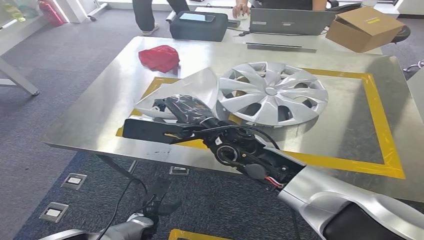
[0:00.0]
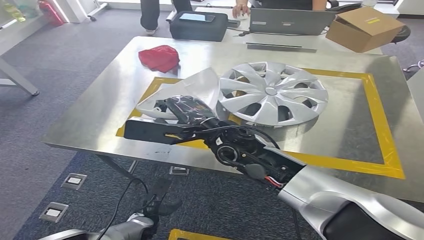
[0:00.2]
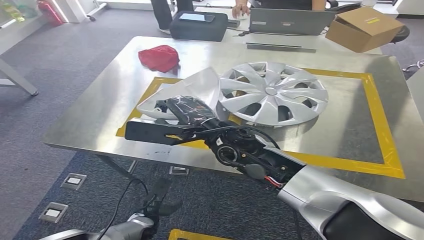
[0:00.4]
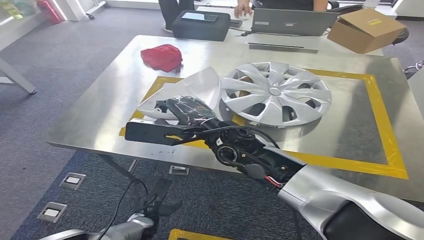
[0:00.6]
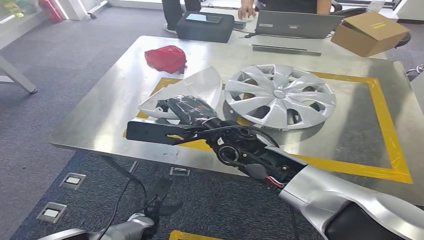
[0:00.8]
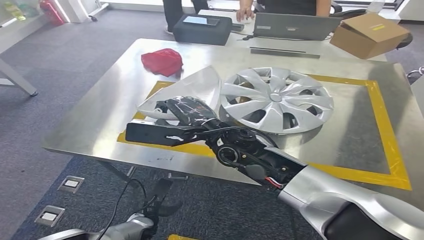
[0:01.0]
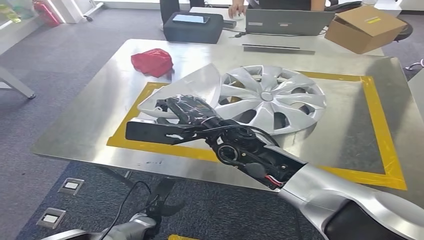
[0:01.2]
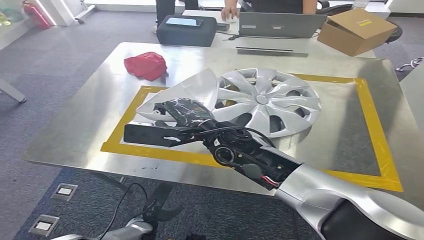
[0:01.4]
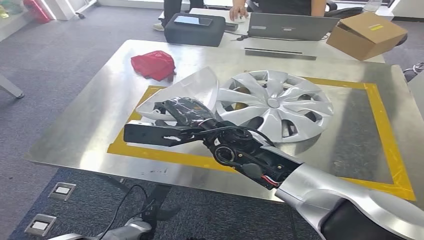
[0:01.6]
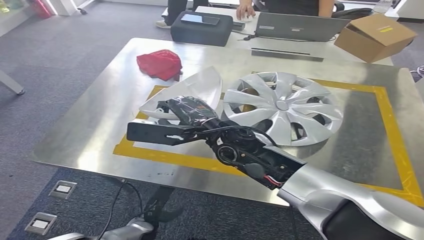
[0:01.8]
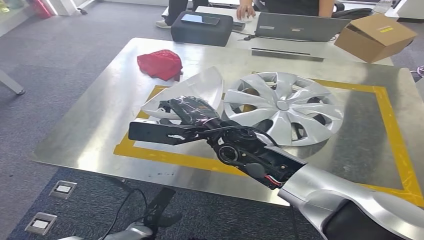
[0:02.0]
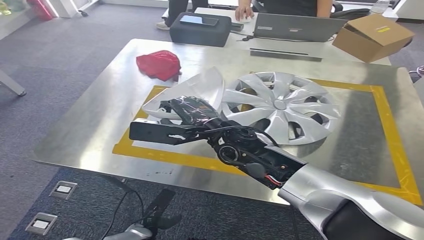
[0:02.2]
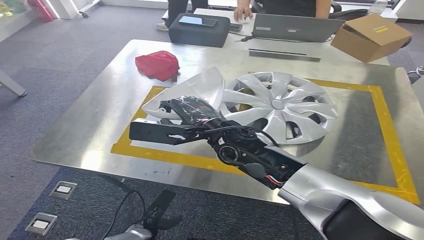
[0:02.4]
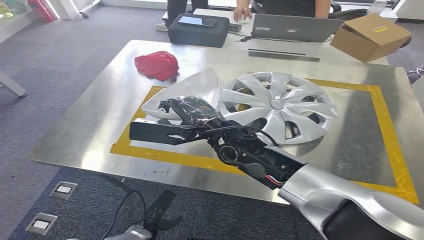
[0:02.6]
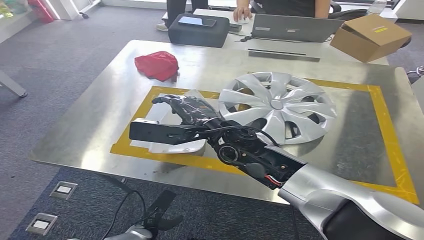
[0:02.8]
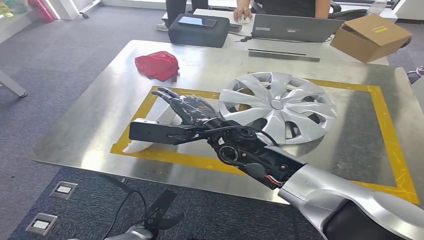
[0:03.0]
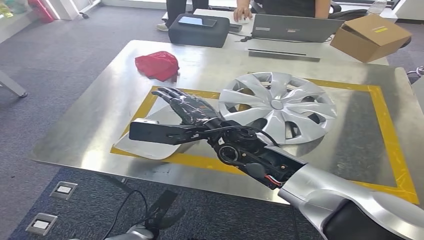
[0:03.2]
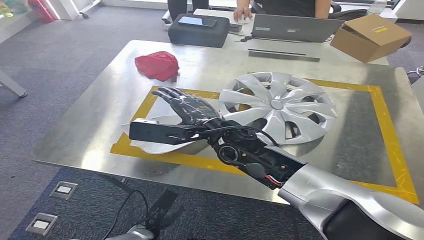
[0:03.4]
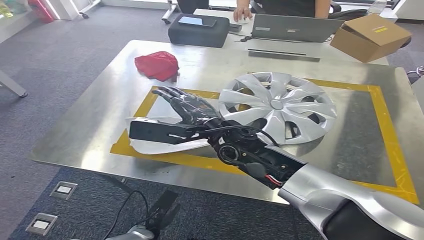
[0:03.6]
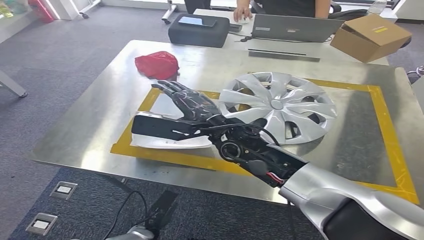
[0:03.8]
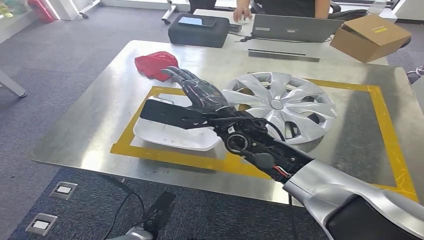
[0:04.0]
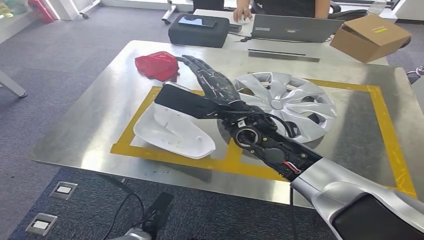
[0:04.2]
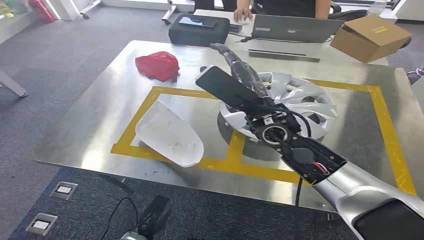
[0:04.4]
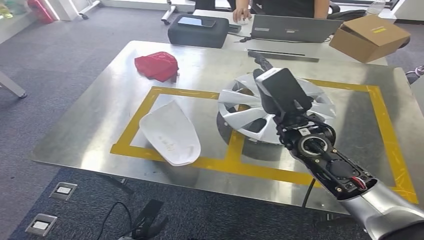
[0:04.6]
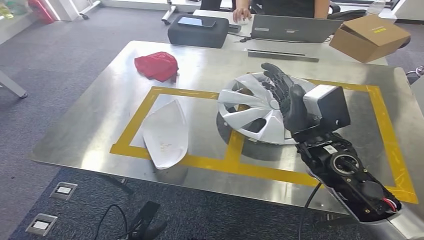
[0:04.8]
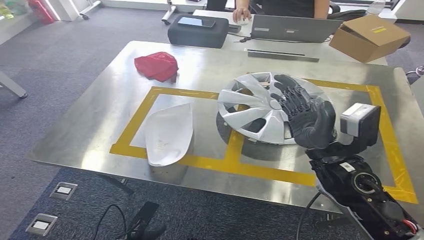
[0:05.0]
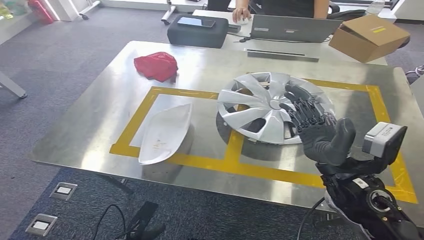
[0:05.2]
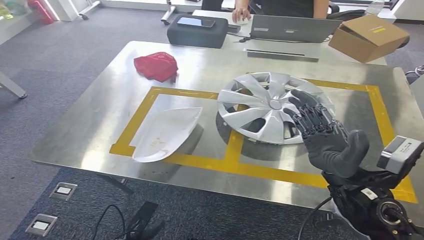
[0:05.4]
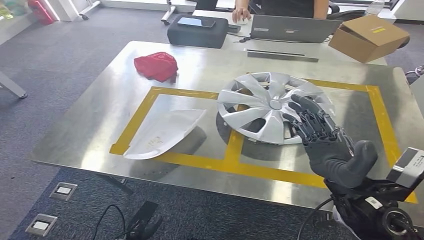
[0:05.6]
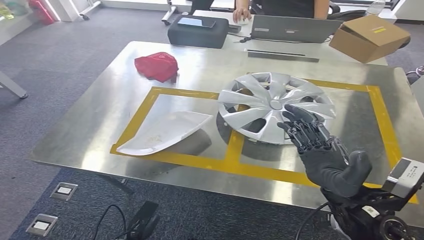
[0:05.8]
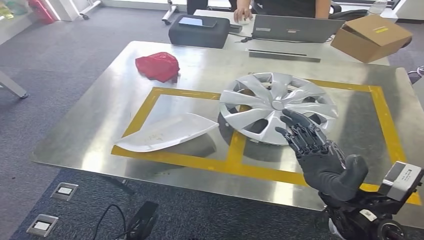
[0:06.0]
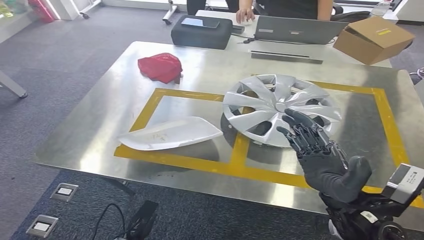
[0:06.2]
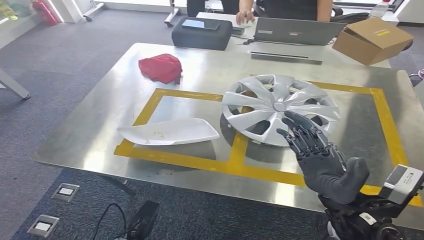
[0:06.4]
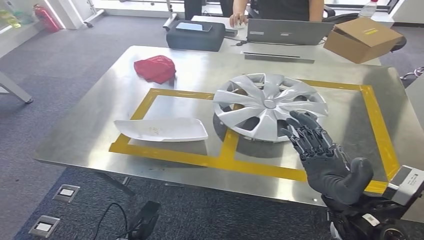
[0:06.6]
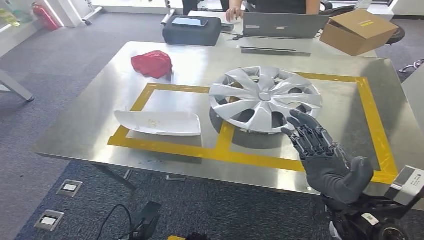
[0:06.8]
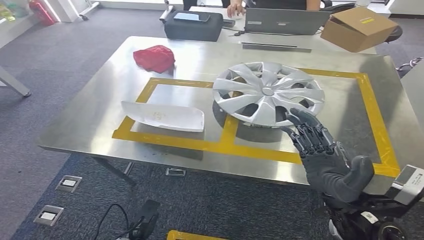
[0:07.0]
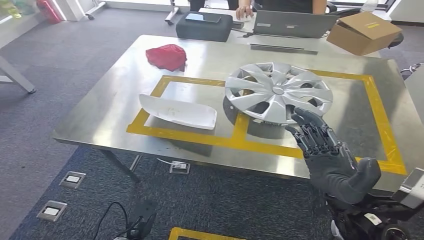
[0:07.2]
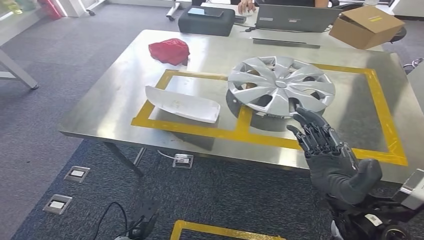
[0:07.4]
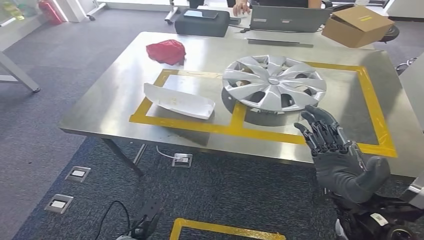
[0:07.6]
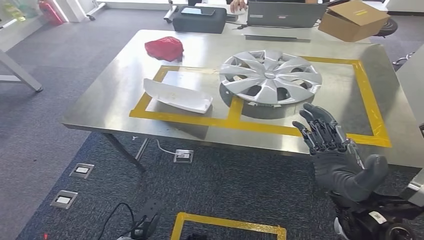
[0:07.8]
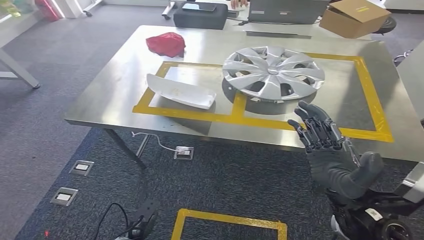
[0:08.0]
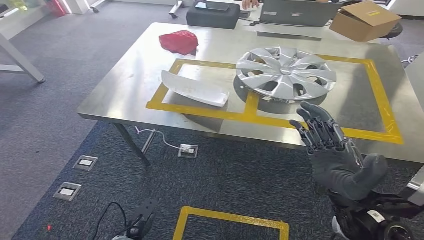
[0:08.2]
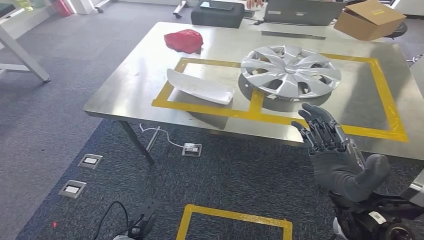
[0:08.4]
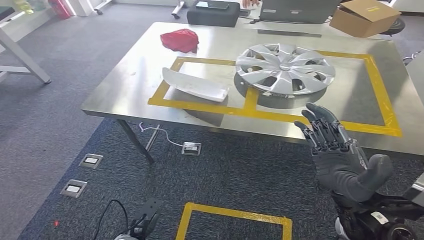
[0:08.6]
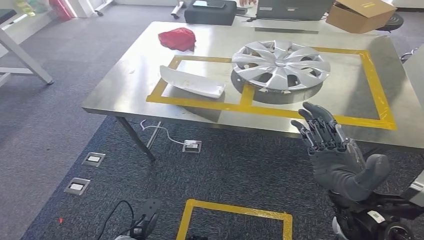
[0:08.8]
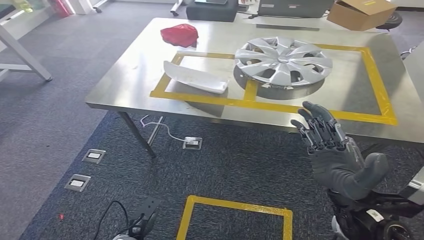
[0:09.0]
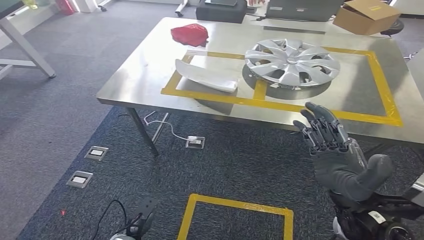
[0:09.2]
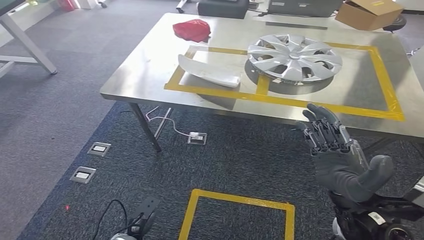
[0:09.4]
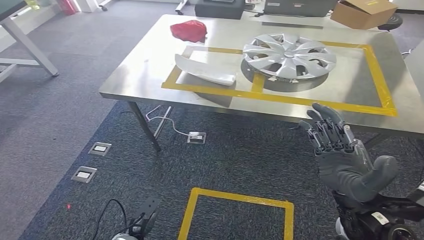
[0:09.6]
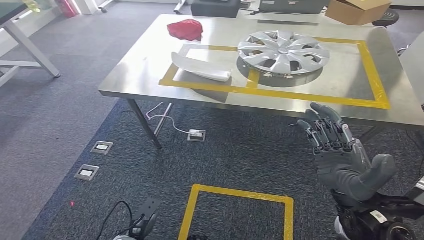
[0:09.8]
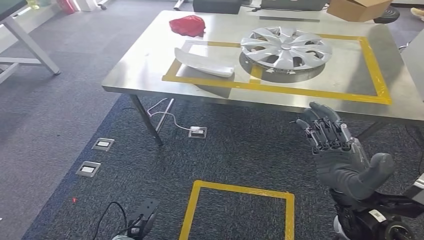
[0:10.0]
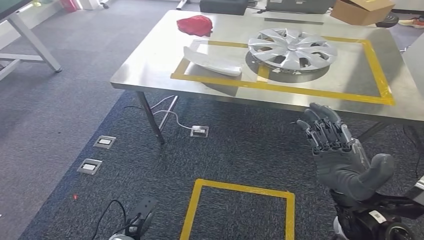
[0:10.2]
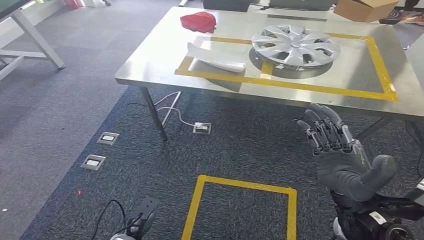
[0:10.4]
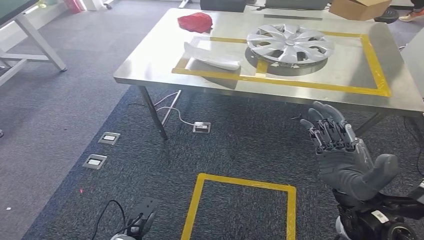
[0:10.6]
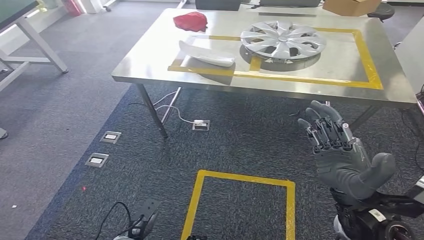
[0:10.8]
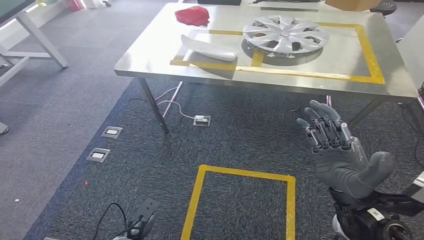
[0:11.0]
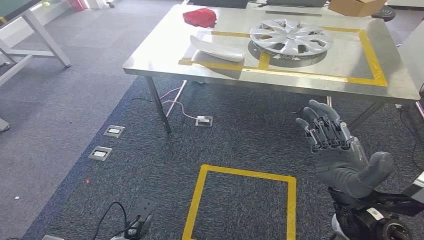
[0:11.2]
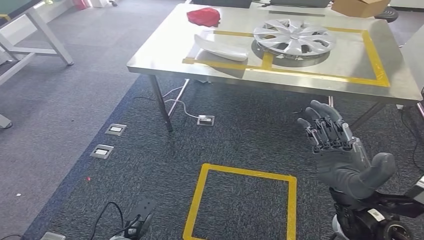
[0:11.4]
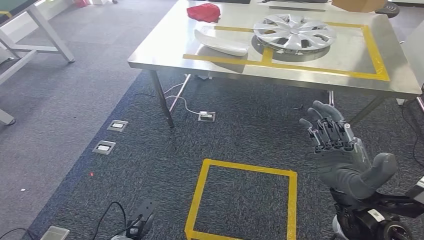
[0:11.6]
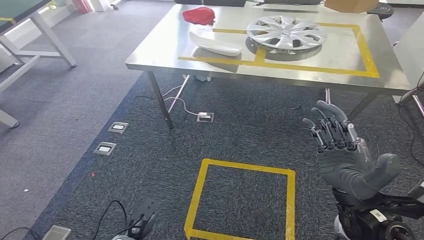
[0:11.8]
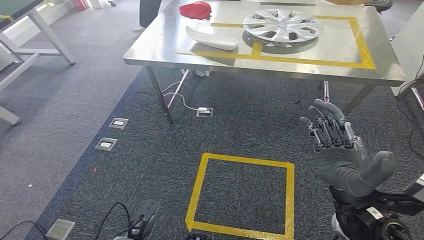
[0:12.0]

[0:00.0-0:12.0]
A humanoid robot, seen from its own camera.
Step, 0:00.0 to 0:06.4: Insert the small component into the corresponding slot on the workbench.
0:01.6 to 0:03.0: There are only small adjustments of the hands.
0:04.4 to 0:06.0: The right hand heads backward, to the right and downward, covering some 20 cm.

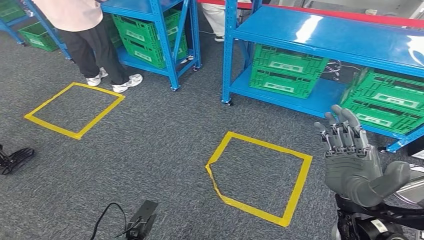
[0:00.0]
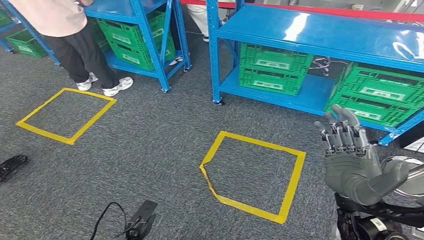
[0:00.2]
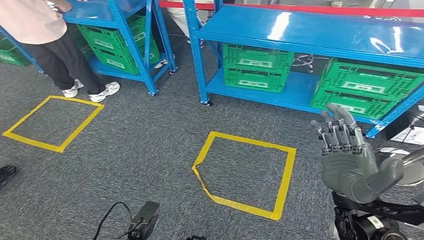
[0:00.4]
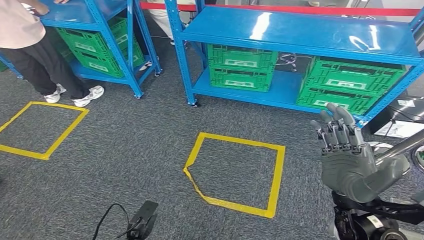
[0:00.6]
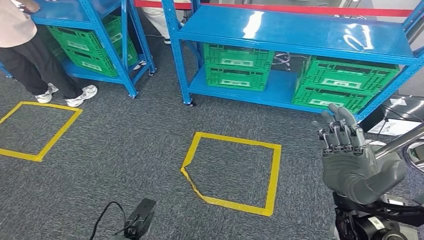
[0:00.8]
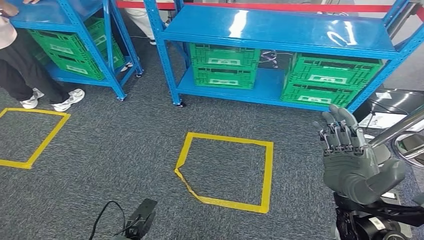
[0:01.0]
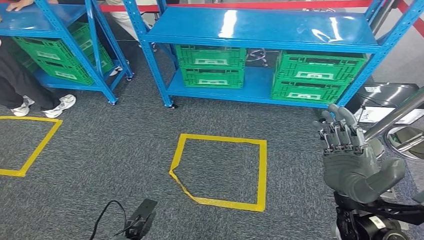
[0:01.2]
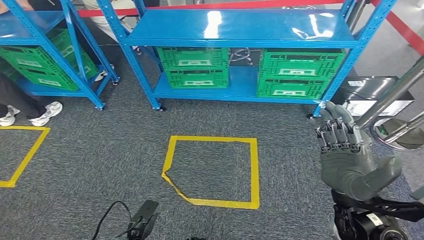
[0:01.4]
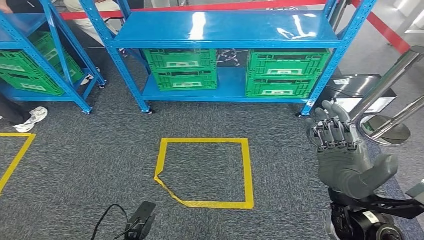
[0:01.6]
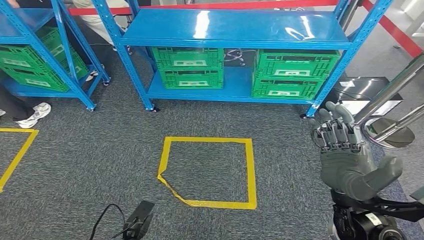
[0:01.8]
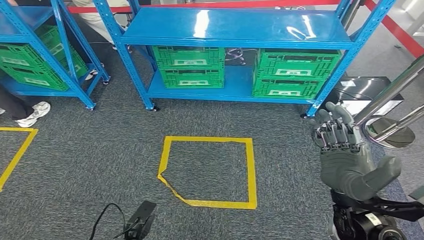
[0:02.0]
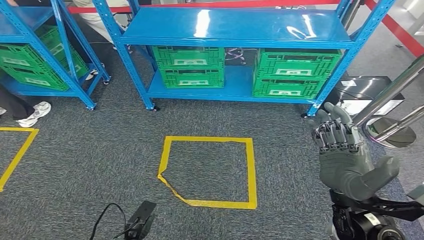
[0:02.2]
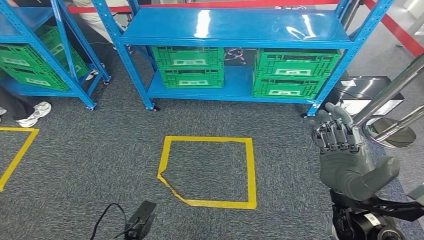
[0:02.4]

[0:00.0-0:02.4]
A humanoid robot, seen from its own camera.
Step, 0:00.0 to 0:02.4: Return to the initial position at the workbench.
